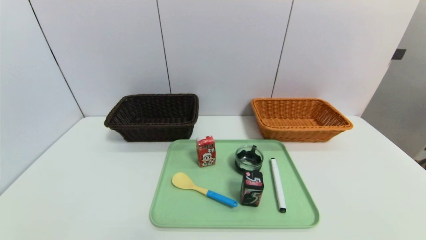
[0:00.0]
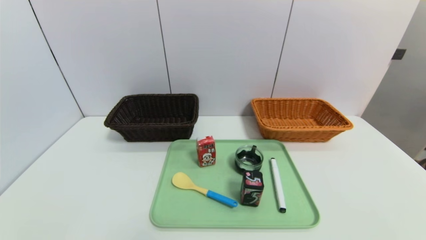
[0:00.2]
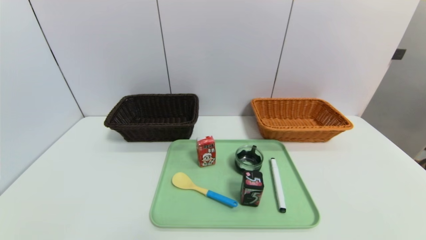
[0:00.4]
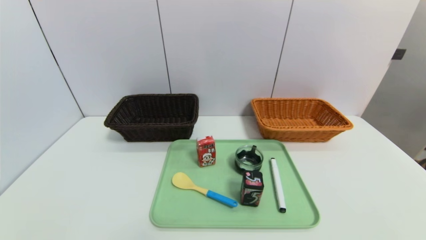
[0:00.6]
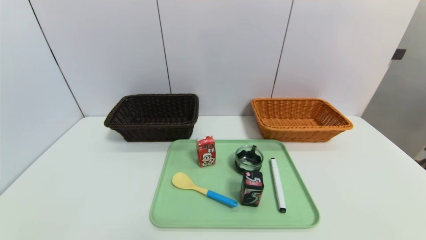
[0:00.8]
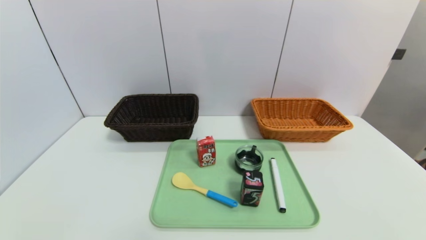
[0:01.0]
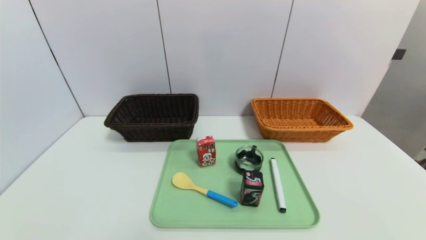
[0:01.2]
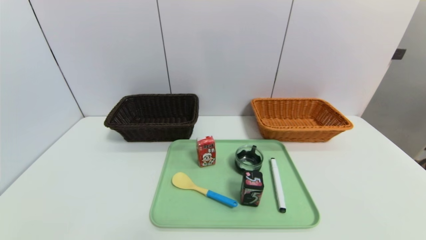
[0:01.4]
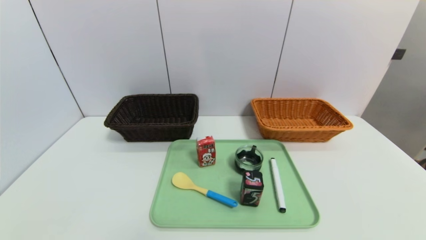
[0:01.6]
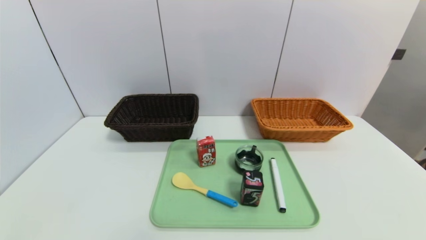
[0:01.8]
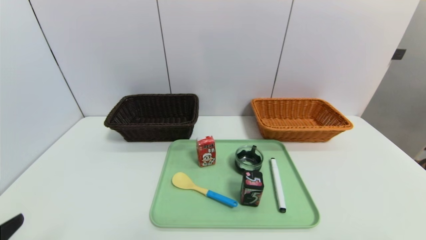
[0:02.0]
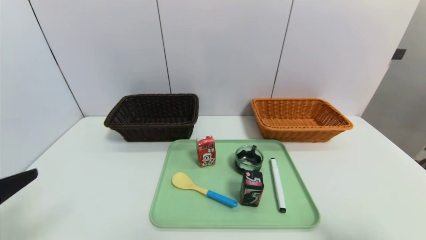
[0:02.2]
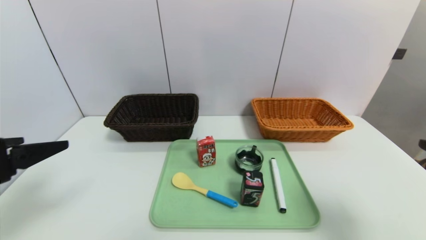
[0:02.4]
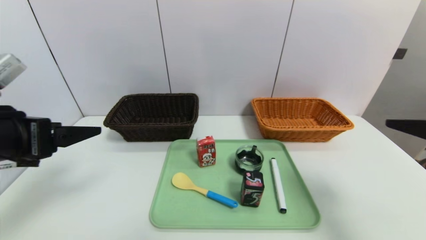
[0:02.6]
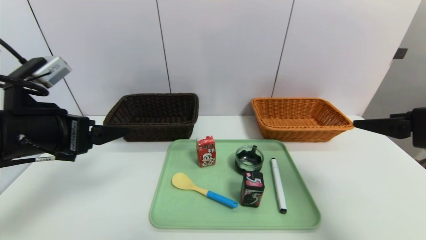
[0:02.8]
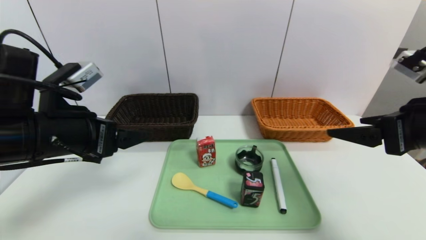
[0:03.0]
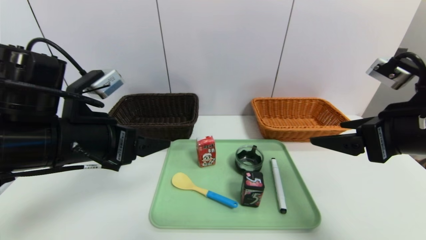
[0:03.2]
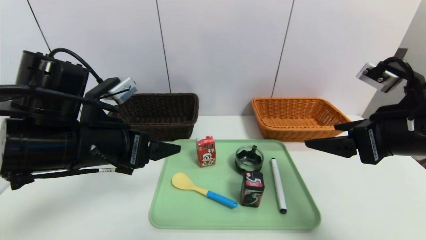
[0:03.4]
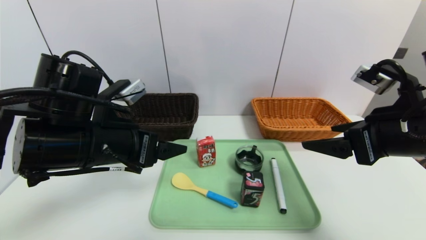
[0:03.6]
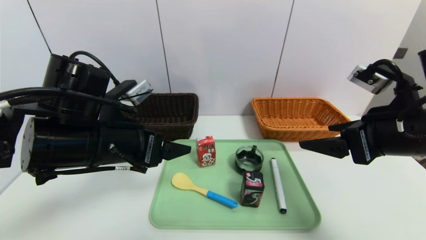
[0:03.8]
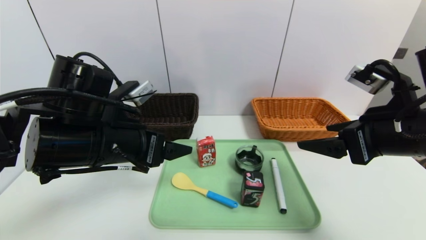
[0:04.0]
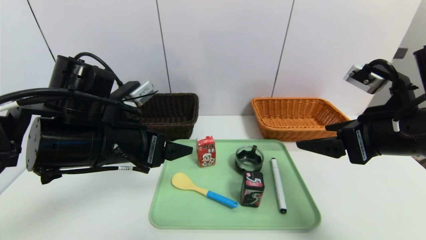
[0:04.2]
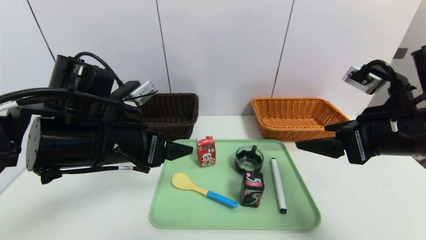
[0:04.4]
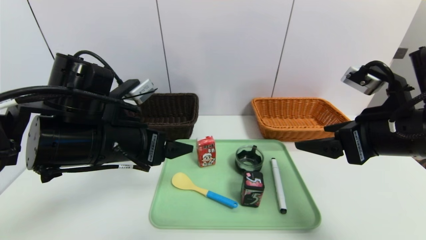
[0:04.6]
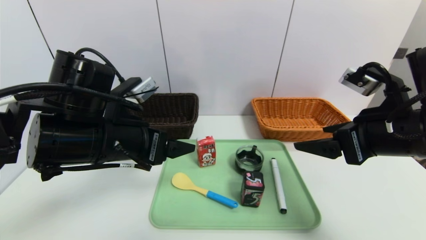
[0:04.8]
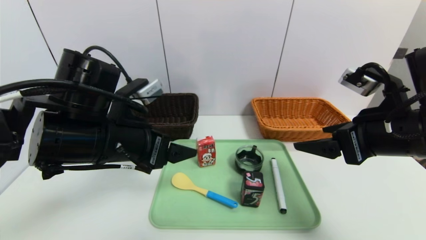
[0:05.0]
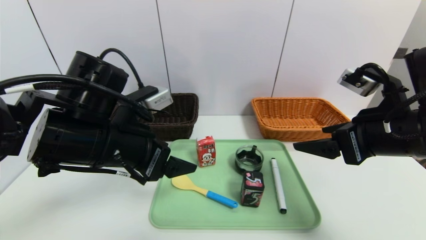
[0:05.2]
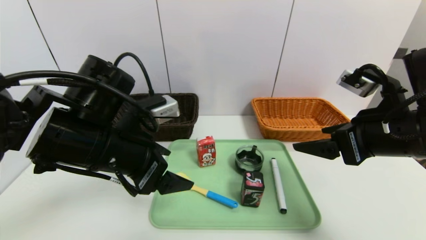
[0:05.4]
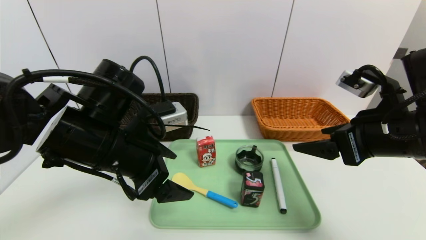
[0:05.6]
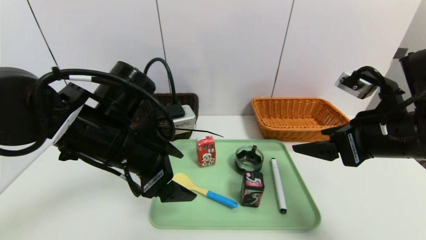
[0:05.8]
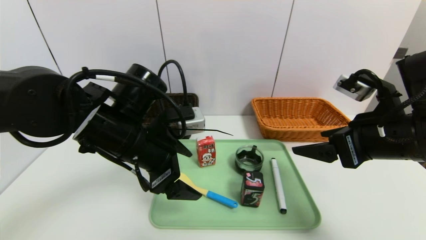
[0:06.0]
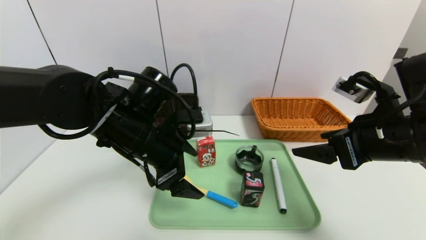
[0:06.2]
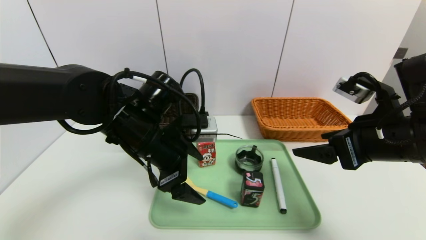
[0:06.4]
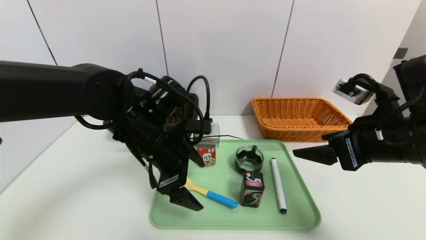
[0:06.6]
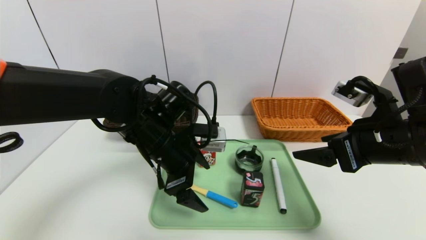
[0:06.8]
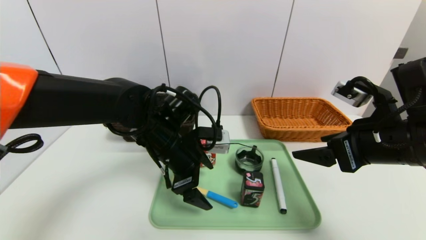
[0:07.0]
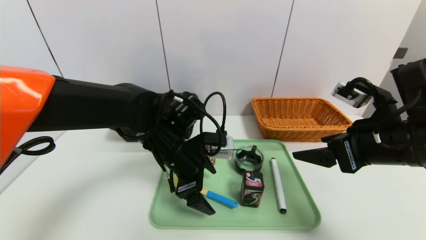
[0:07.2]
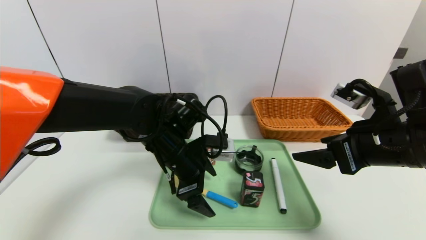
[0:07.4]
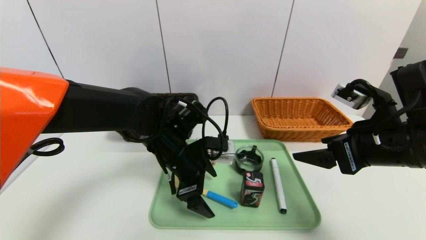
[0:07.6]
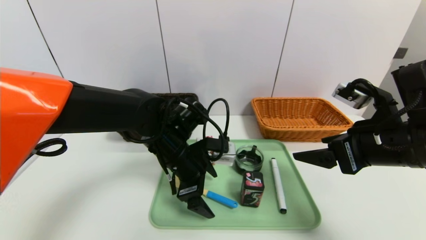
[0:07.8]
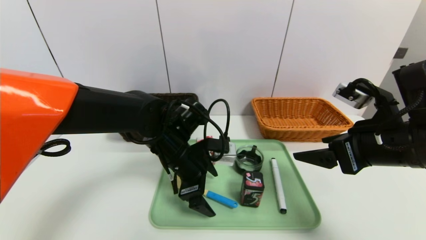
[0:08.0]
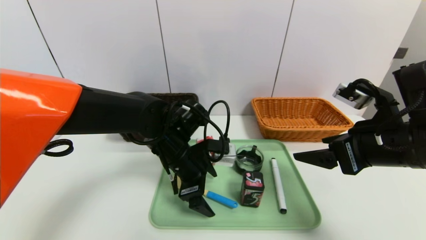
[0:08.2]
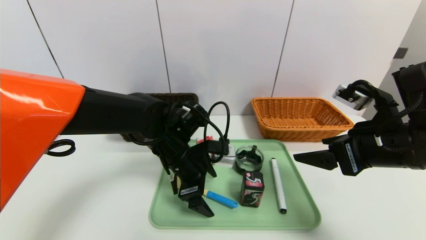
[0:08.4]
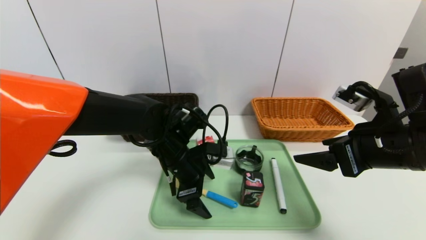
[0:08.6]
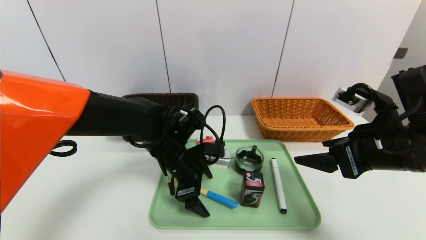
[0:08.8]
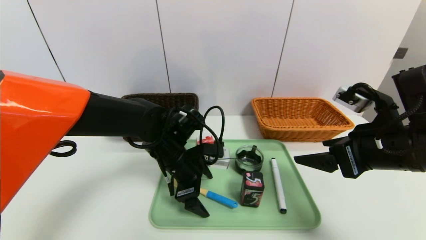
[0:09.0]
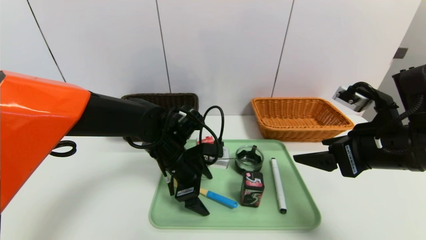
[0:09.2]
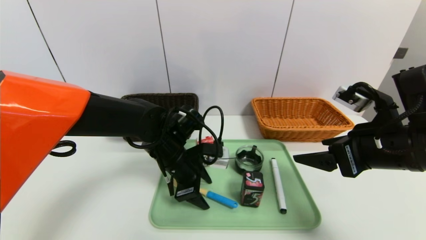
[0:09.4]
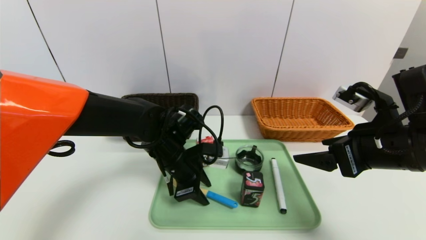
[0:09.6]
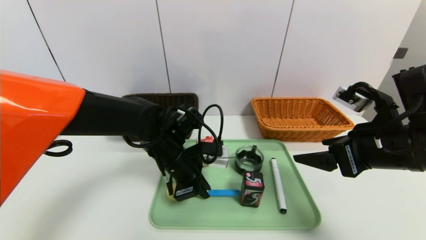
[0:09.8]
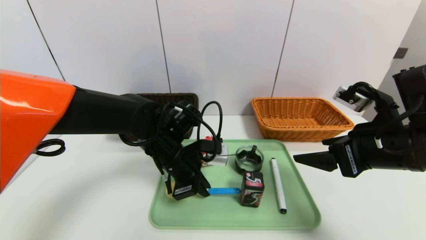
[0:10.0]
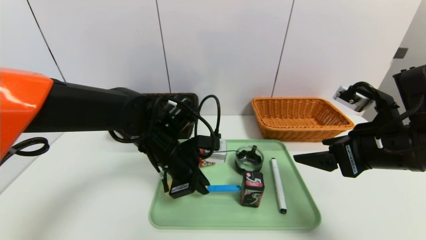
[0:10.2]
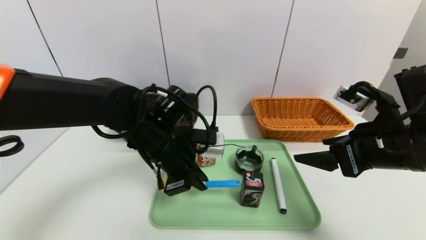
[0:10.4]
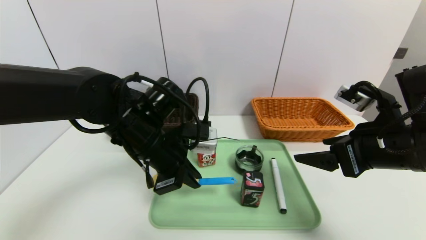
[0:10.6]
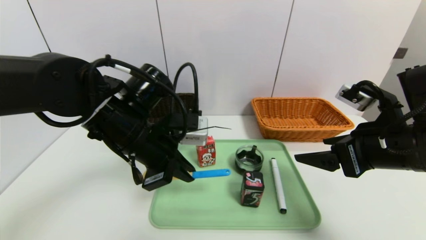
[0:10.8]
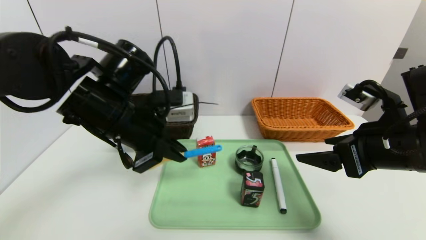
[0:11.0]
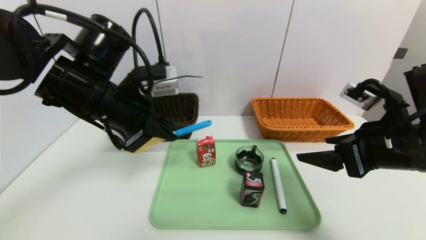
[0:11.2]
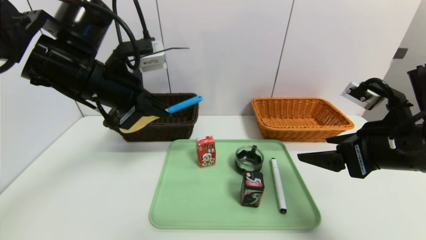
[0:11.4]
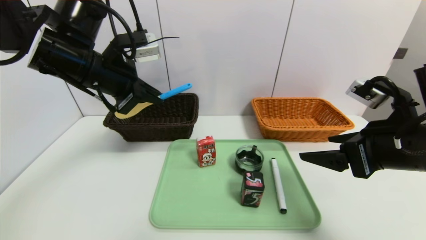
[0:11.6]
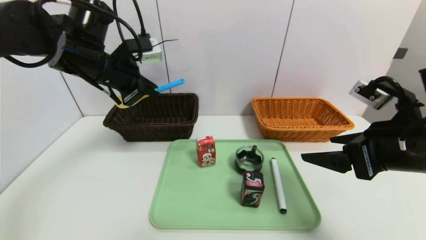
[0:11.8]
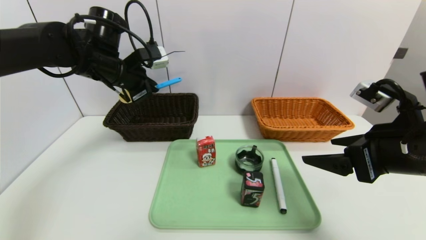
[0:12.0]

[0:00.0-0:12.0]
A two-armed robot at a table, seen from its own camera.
Task of the whole recording: place the food in the right basket with the right gripper, and place the non food items in the left basket with the left gripper.
0:01.6 to 0:03.0: The two grippers go about 25 cm forward and upward.
0:03.0 to 0:04.4: The left gripper travels to the right by approximately 5 cm.
0:06.0 to 0:07.6: The left gripper goes approximately 10 cm downward and to the right.
0:07.6 to 0:09.0: There are only small adjustments of the grippers.
0:09.0 to 0:10.4: The left gripper is displaced upward by about 5 cm, and closes its fingers.
0:10.4 to 0:12.0: The left gripper shifts some 20 cm to the left, forward and upward.

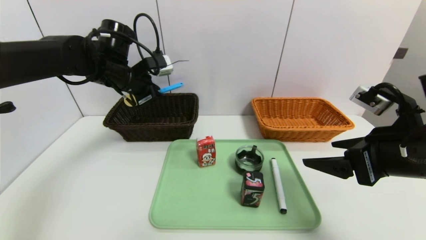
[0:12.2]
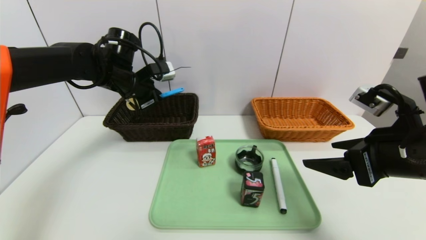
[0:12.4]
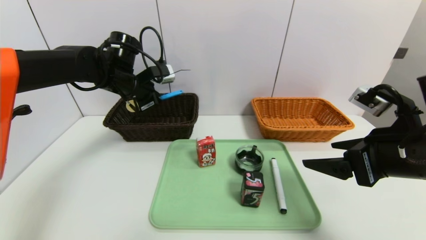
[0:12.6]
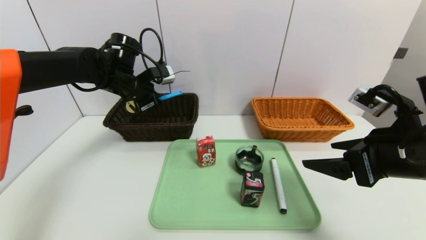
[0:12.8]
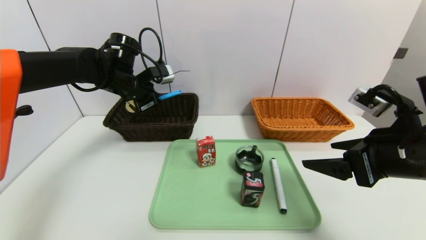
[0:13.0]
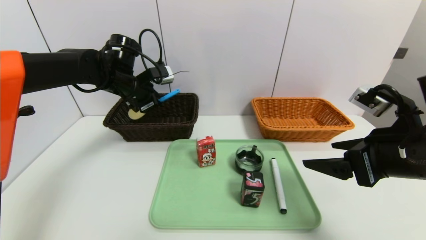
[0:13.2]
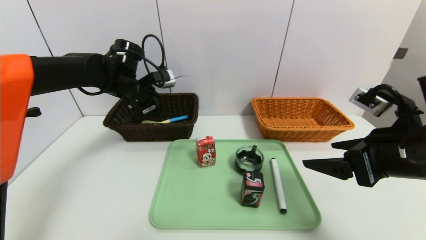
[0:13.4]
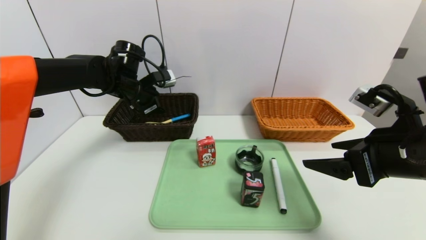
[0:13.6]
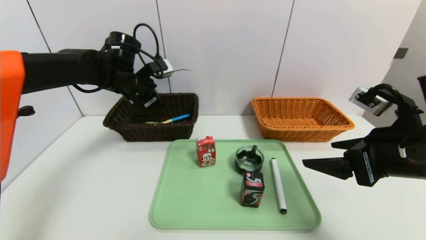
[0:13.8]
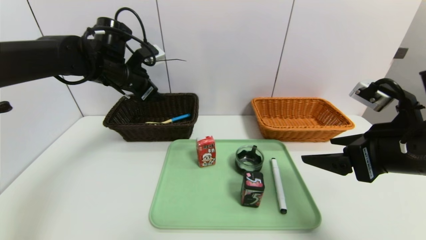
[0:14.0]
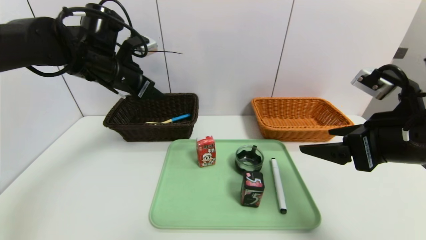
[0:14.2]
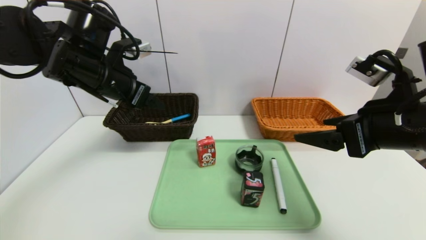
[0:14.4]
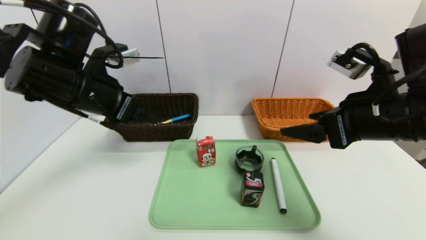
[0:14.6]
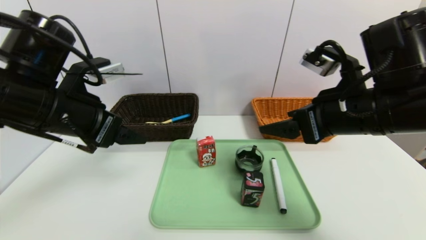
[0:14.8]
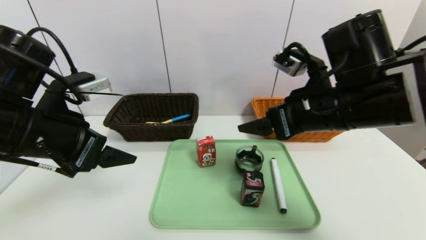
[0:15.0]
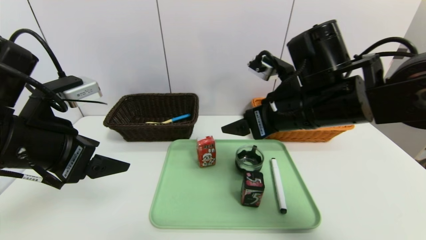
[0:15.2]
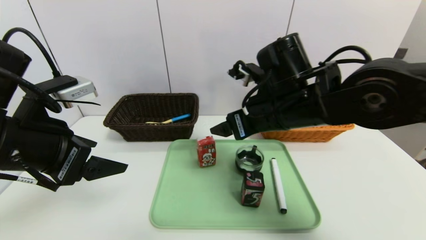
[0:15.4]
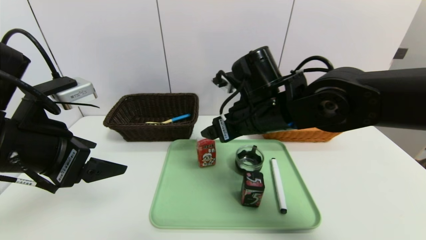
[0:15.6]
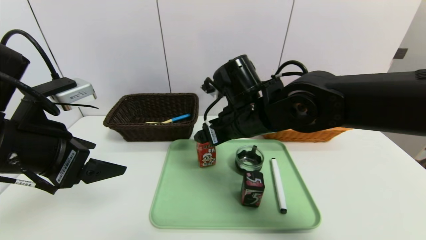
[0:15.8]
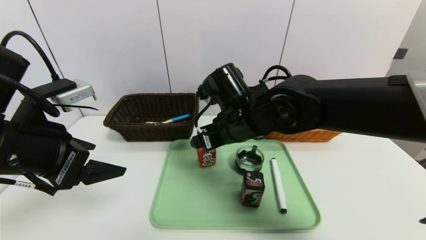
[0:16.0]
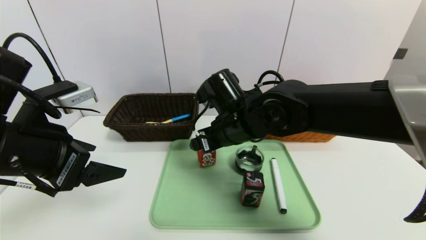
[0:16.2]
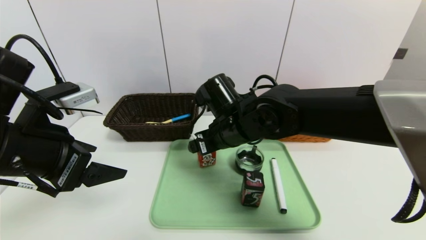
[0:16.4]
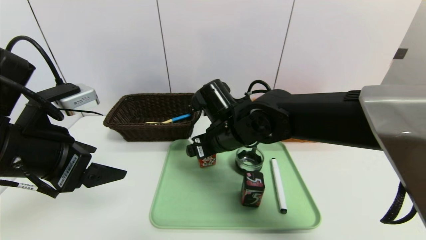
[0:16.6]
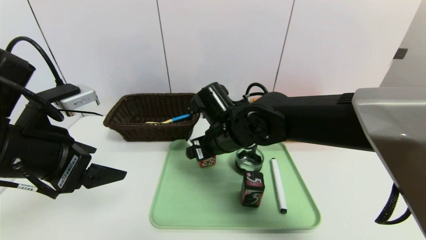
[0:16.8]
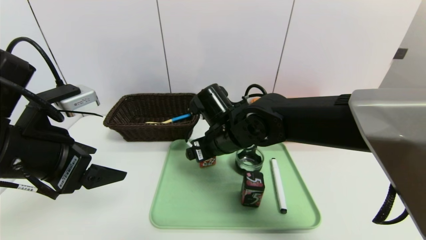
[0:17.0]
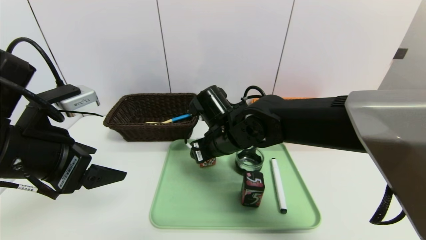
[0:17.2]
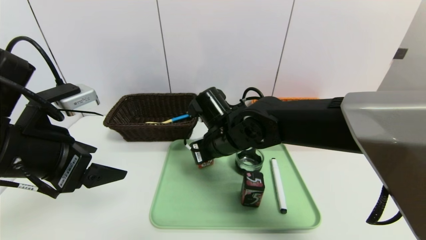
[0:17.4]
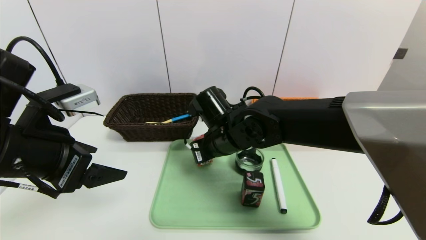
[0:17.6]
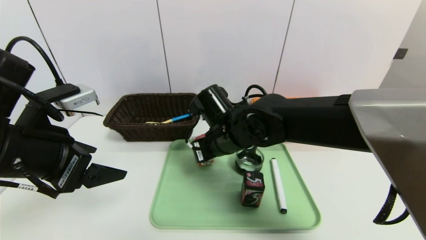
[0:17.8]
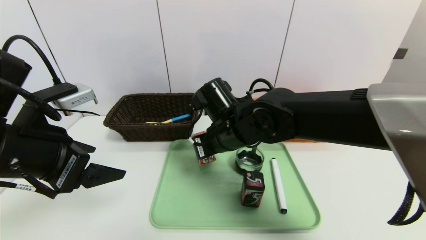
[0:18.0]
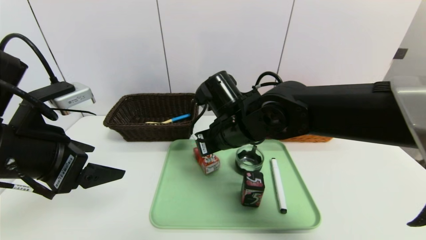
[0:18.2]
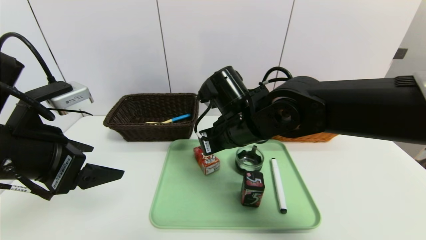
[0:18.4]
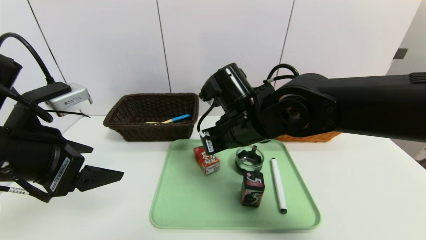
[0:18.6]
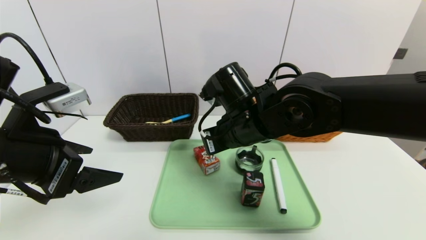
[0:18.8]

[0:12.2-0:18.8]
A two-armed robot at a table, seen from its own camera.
Task of the whole recording: place the food in the right basket with the right gripper, and place the non food items in the left basket with the left gripper.
0:12.2 to 0:13.8: The left gripper opens up.
0:13.8 to 0:15.4: The left gripper travels backward by about 25 cm. Meanwhile the right gripper moves to the left and forward, roughly 20 cm.
0:15.4 to 0:17.2: The right gripper goes approximately 10 cm to the left and downward.
0:17.2 to 0:18.8: The right gripper ends up approximately 5 cm from where it was, and closes its fingers.
